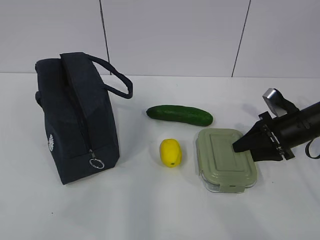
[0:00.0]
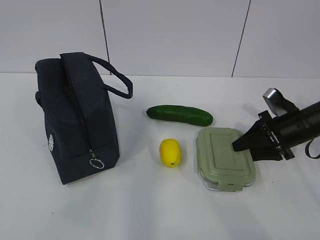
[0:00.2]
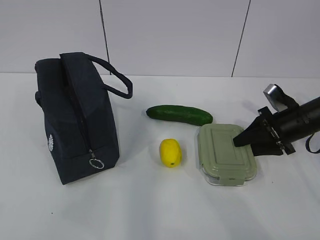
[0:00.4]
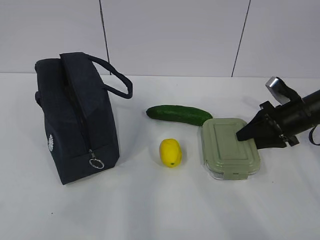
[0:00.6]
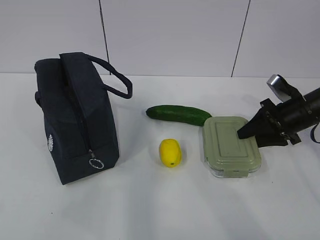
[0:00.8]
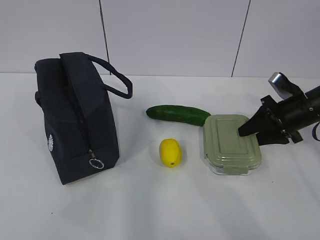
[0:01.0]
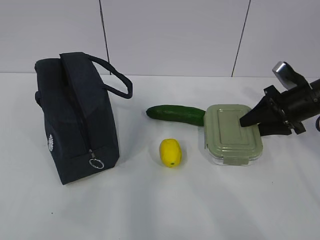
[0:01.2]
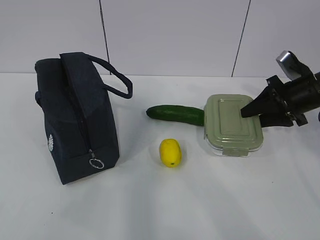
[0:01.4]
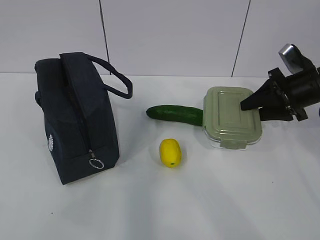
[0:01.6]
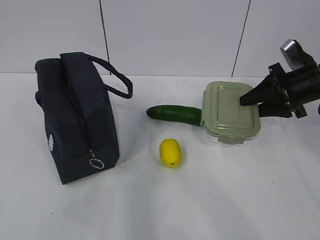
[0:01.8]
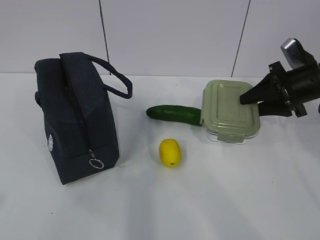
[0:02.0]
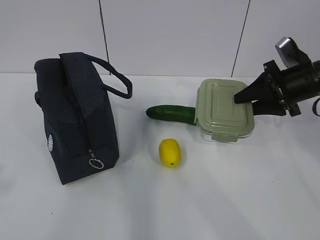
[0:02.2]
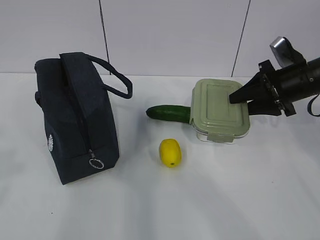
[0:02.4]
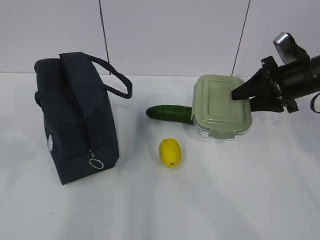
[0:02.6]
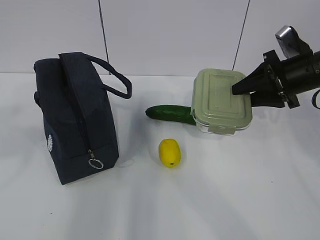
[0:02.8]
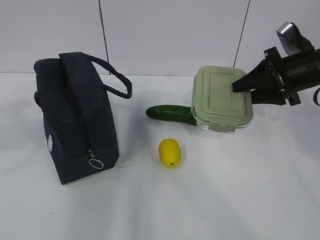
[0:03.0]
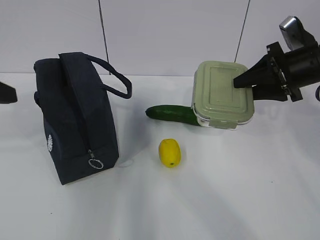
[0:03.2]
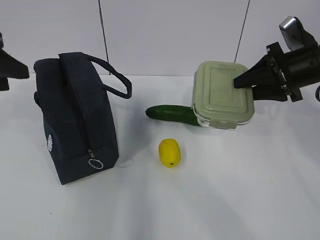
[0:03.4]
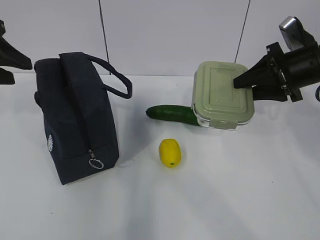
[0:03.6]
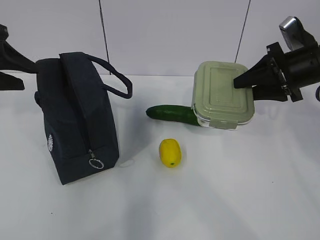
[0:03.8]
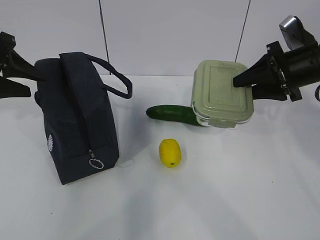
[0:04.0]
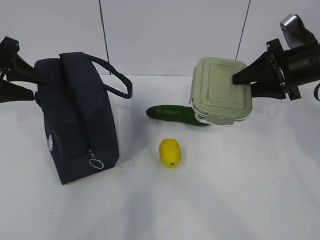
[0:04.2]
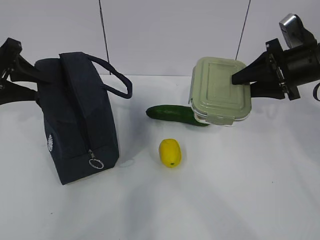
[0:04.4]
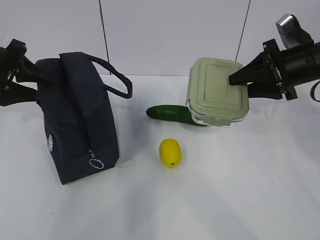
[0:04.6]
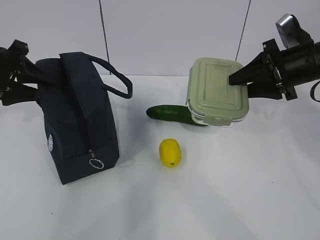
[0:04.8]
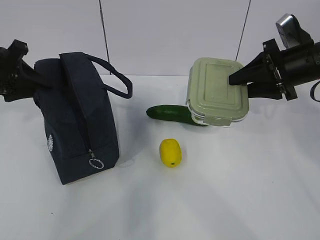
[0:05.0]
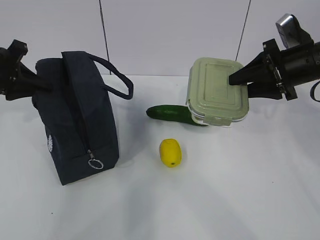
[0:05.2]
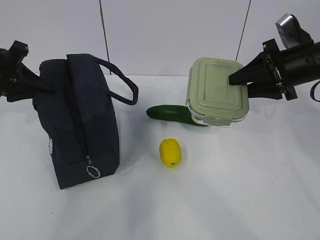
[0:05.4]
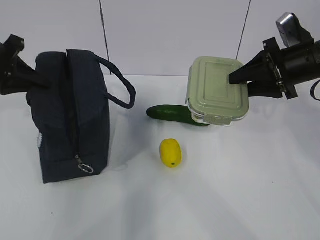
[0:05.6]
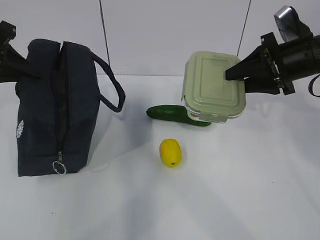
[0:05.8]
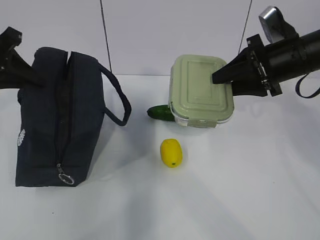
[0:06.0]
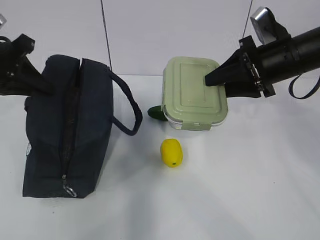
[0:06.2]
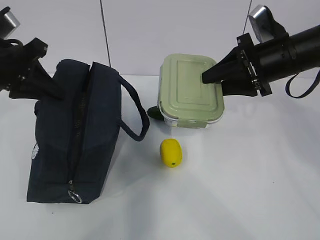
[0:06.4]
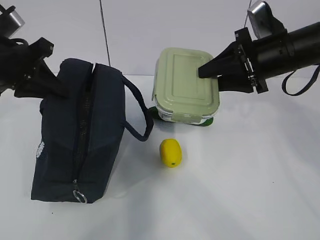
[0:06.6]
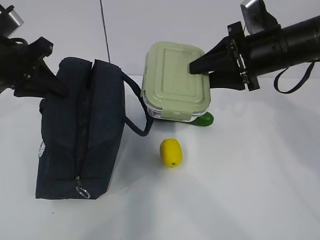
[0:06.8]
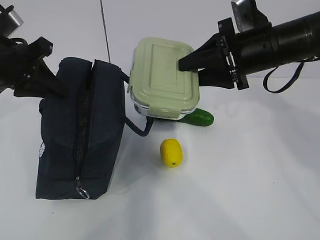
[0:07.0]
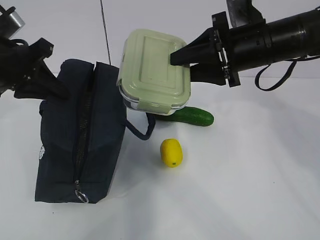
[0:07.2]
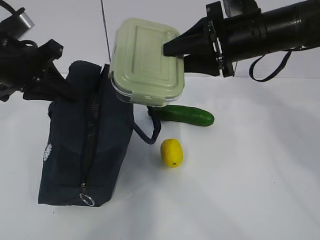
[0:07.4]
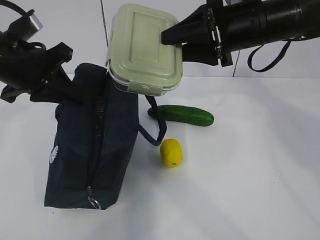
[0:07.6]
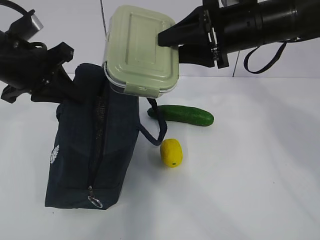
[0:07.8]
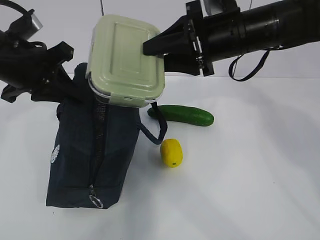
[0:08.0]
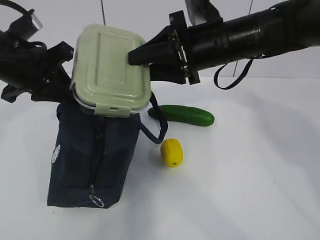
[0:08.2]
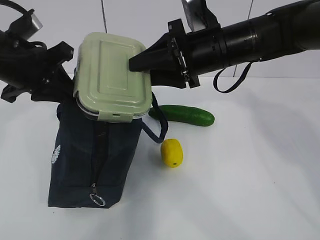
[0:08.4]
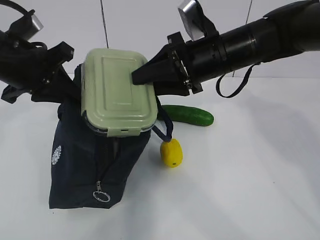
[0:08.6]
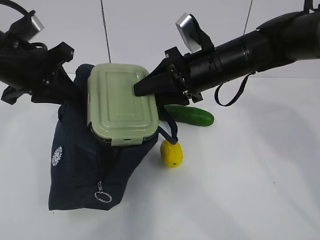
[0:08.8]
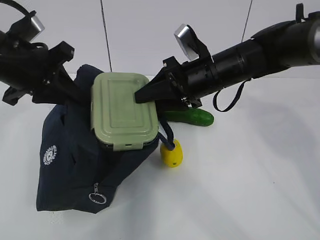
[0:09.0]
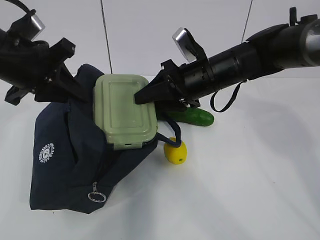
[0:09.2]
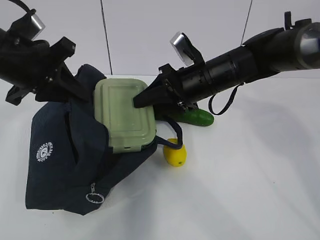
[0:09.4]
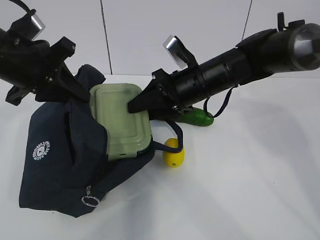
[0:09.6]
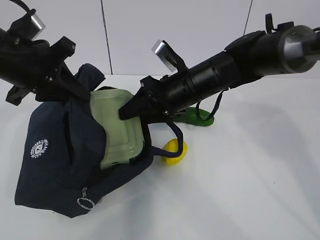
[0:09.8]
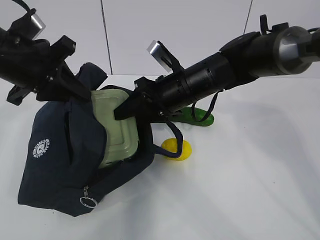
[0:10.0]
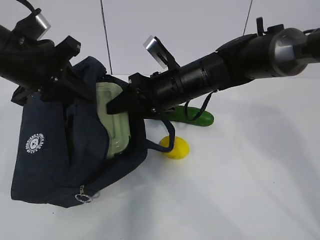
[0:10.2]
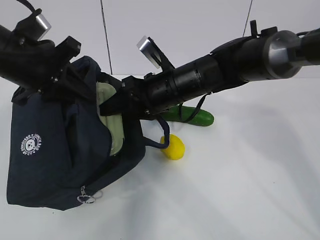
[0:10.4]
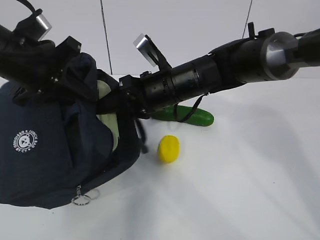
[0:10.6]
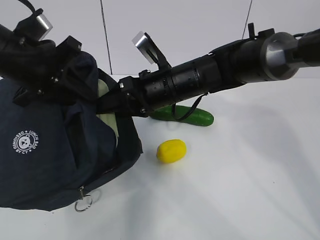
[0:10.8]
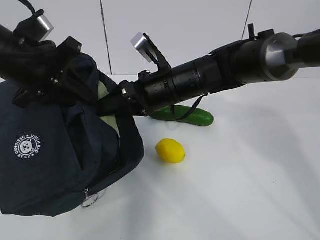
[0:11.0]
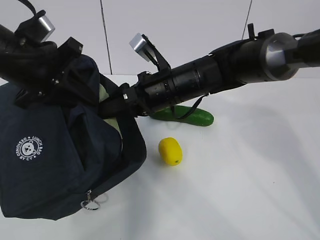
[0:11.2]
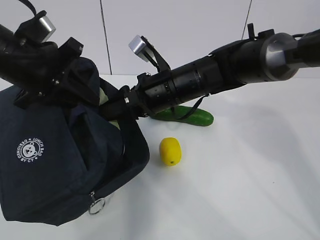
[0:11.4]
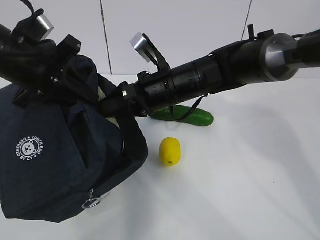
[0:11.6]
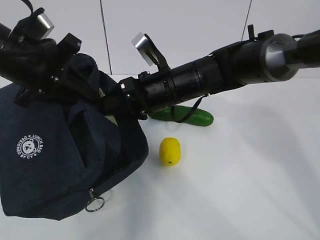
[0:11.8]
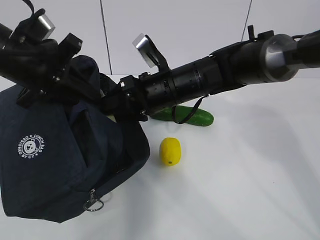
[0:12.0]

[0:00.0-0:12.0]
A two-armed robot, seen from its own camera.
Step, 0:00.0 to 0:05.2: Grab the lunch bag with your left hand.
Step, 0:05.6 to 0:09.2: Place it into the bag with your right hand.
0:00.0 to 0:01.6: The right gripper is displaced upward by approximately 10 cm.
0:01.6 to 0:03.0: The left gripper goes approximately 15 cm forward.
0:03.0 to 0:04.4: The left gripper heads forward, covering some 20 cm.
0:04.4 to 0:06.0: The left gripper closes its fingers.
0:06.0 to 0:07.6: The left gripper goes some 5 cm to the right. The right gripper travels to the left and upward by approximately 10 cm.
0:07.6 to 0:09.0: The right gripper moves downward, approximately 10 cm.
0:09.0 to 0:10.4: The right gripper goes some 5 cm to the left.

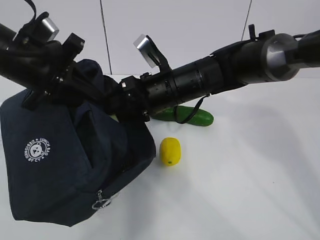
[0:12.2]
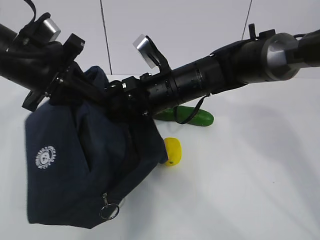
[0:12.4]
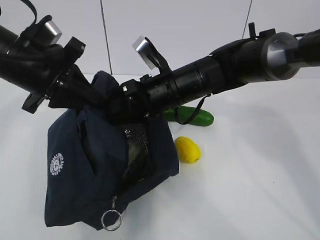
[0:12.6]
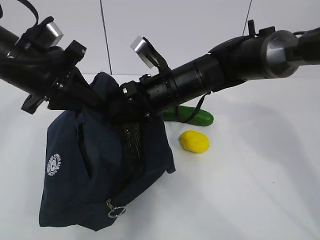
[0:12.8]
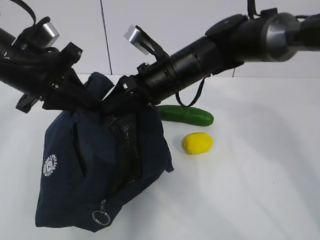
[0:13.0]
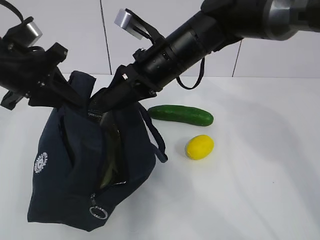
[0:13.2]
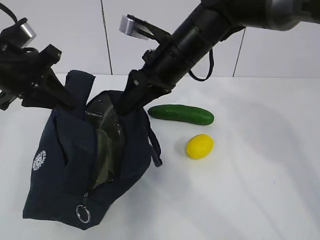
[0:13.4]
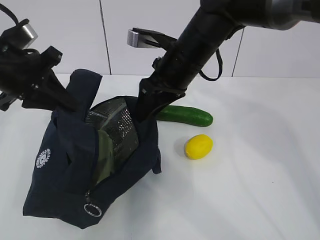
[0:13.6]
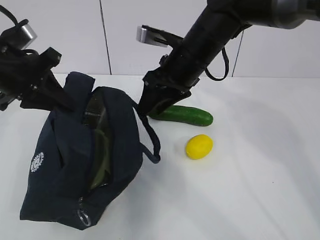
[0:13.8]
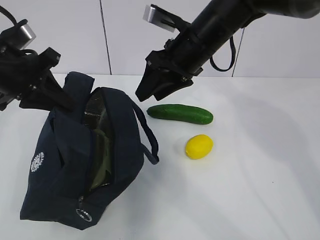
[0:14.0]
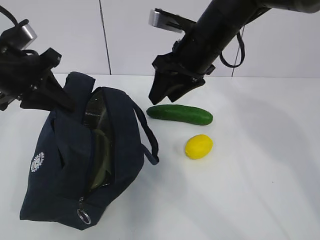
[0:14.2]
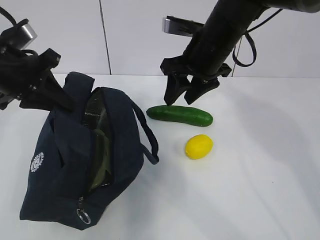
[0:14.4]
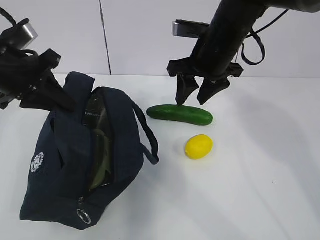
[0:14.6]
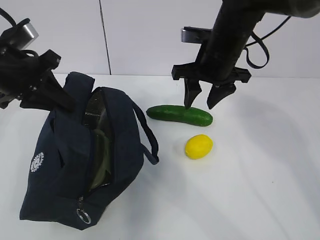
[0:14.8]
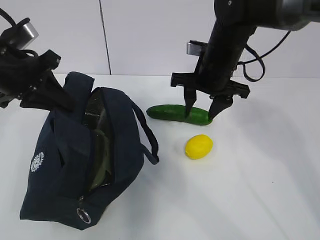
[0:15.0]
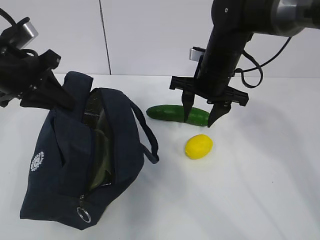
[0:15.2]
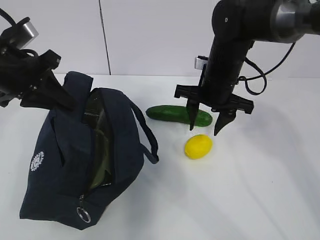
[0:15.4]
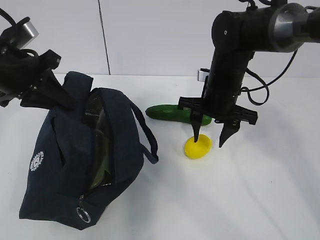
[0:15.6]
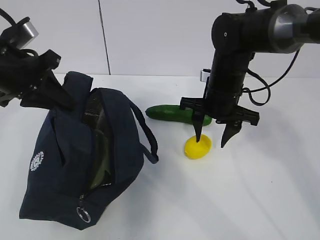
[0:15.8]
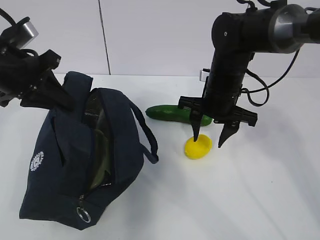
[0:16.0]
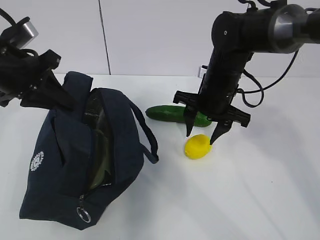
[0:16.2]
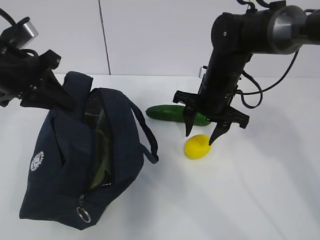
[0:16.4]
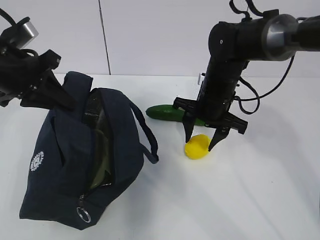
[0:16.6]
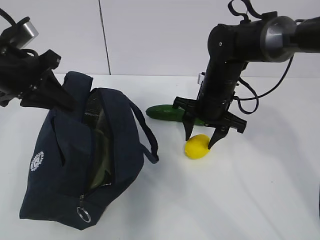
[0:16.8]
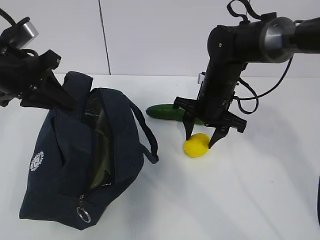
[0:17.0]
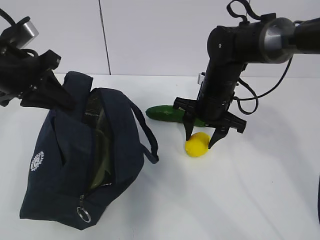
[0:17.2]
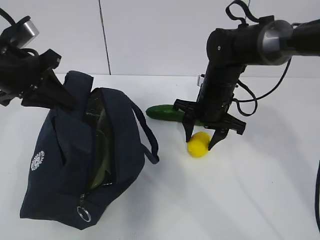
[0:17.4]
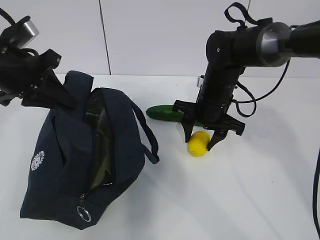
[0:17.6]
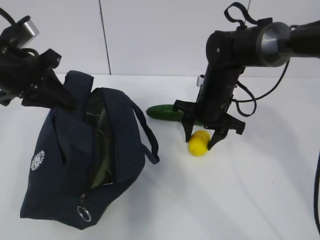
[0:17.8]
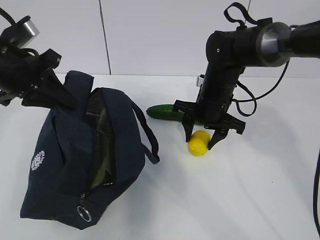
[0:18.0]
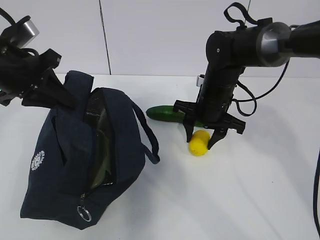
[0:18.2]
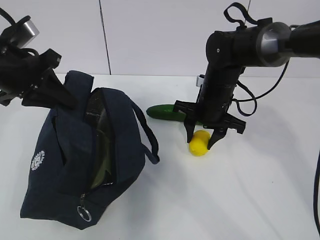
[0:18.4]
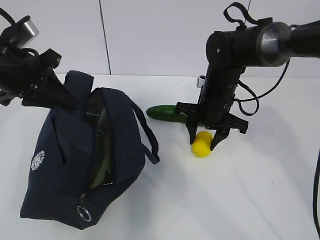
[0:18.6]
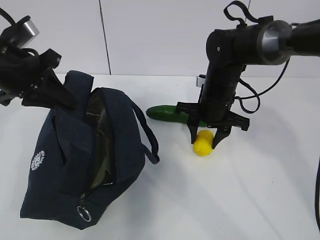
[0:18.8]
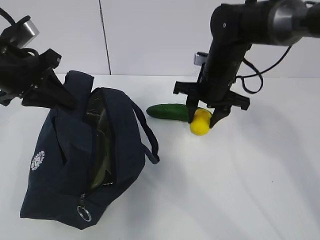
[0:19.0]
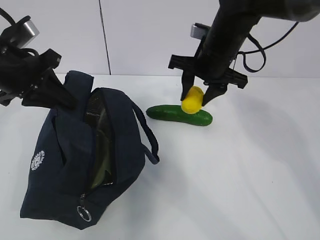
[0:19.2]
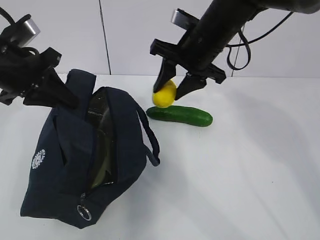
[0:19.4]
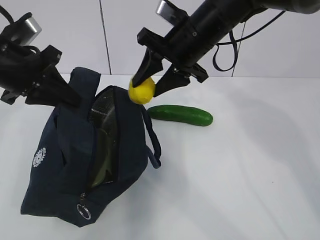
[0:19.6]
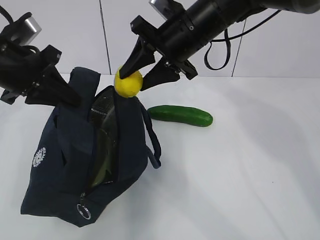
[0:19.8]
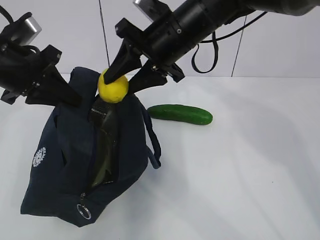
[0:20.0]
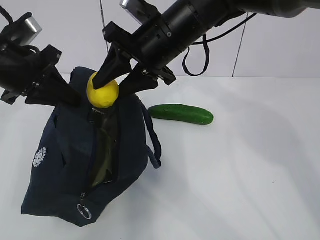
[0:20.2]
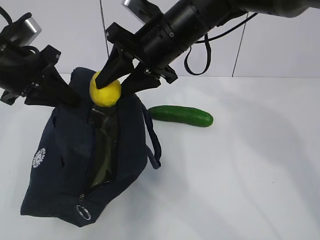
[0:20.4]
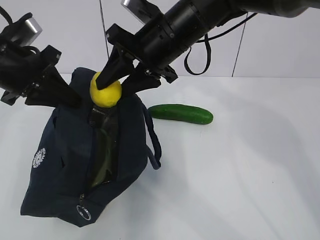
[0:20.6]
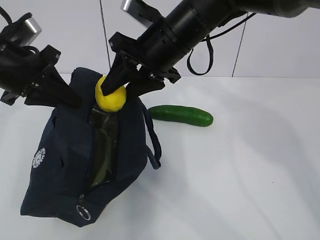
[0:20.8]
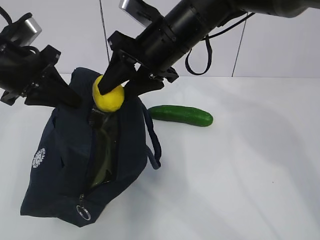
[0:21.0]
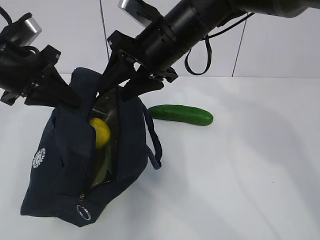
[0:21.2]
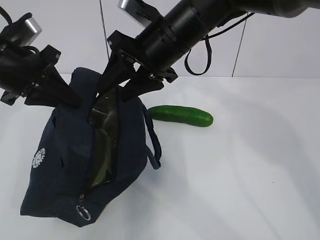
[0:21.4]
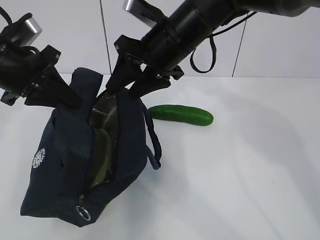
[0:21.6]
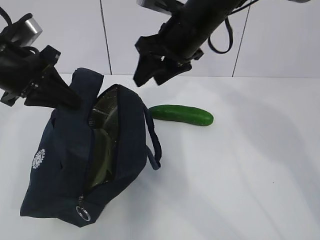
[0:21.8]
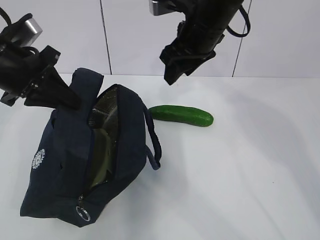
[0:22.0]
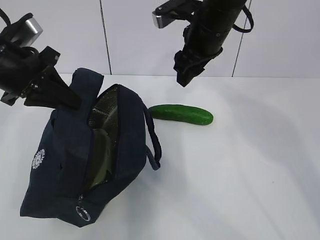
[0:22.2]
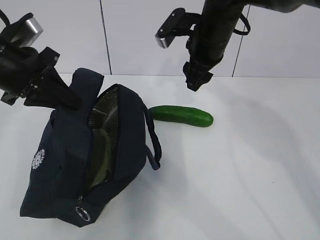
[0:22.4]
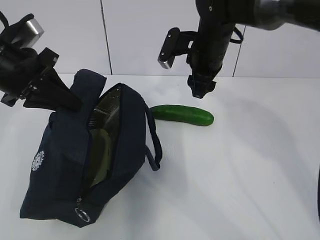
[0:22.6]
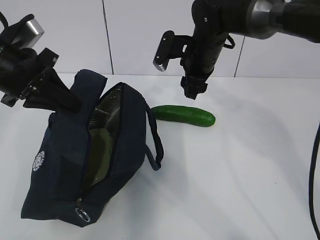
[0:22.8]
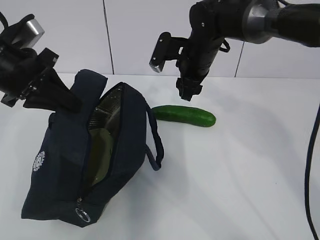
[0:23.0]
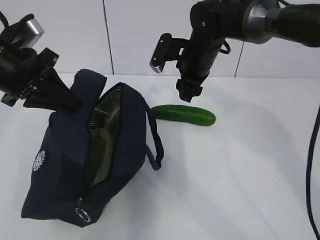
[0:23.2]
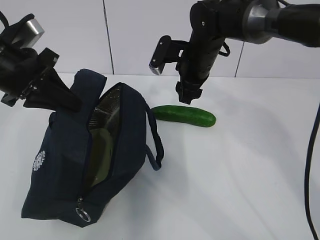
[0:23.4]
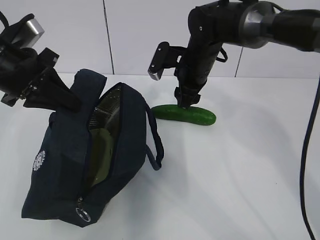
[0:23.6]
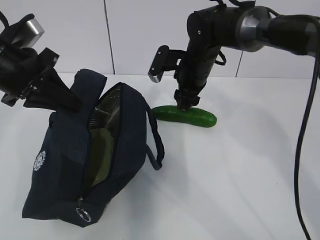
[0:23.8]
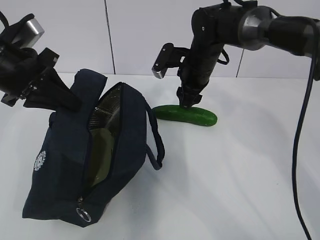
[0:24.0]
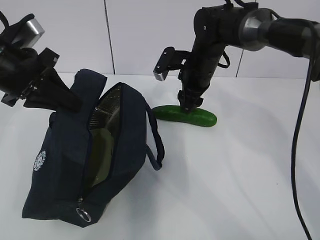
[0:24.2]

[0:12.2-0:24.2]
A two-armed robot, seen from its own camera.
Step, 0:14.2 to 0:16.2: Place it into the bag with your right hand.
Step, 0:16.4 to 0:19.6: Grab the cucumber with your right hand.
0:12.2 to 0:13.8: The right gripper changes place by some 5 cm.
0:13.8 to 0:15.2: The right gripper shifts by some 5 cm.
0:15.2 to 0:16.6: The grippers make only small movements.
0:16.6 to 0:18.2: The grippers stay close to where they were, moving slightly.
0:18.2 to 0:19.8: The right gripper heads upward, covering about 15 cm.
0:19.8 to 0:21.2: The grippers move only a little.
0:21.2 to 0:22.6: The right gripper moves forward and to the right, some 10 cm.
0:22.6 to 0:24.2: The right gripper travels downward by roughly 5 cm.
